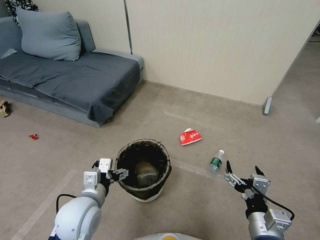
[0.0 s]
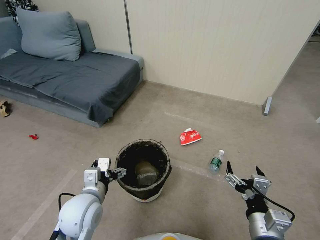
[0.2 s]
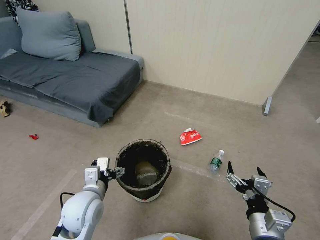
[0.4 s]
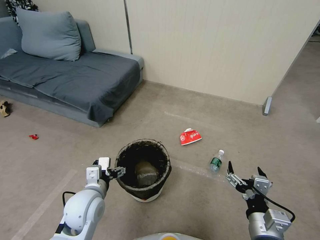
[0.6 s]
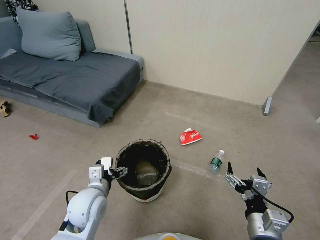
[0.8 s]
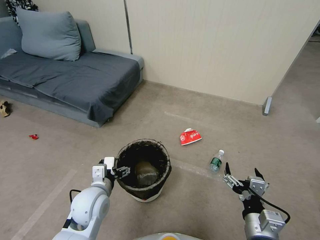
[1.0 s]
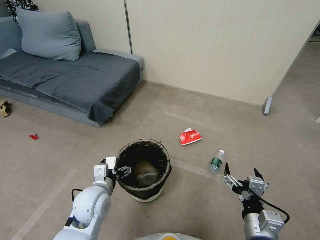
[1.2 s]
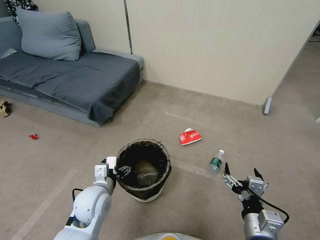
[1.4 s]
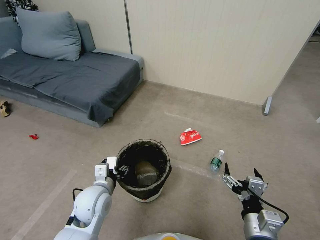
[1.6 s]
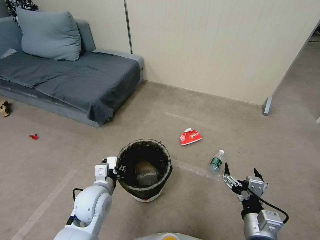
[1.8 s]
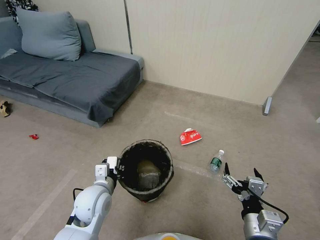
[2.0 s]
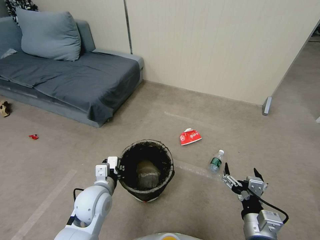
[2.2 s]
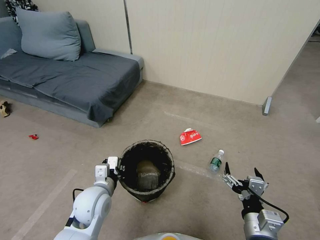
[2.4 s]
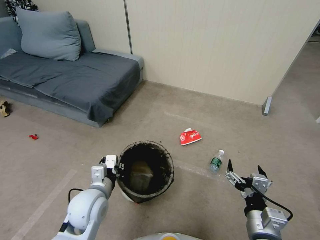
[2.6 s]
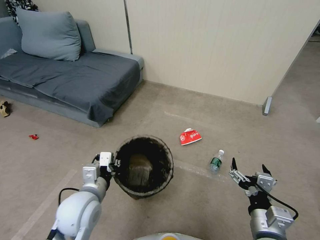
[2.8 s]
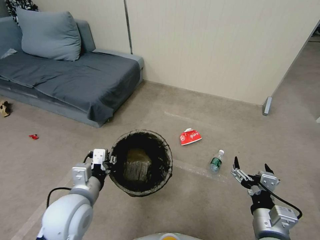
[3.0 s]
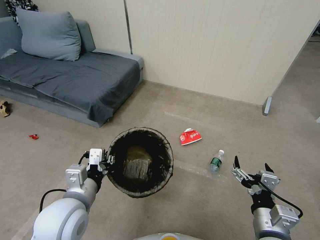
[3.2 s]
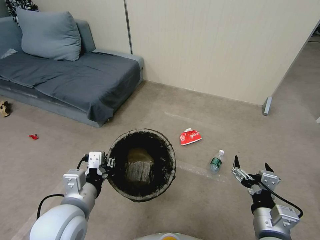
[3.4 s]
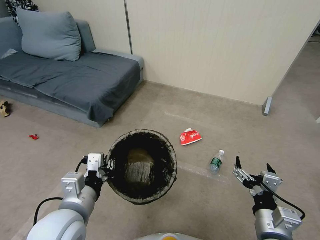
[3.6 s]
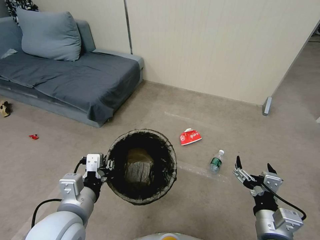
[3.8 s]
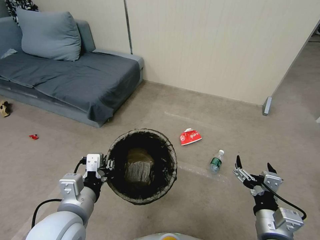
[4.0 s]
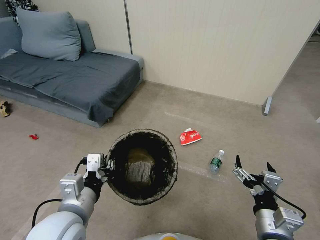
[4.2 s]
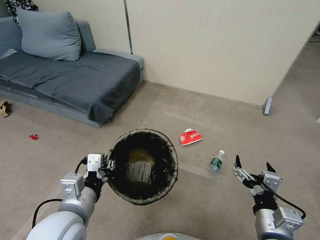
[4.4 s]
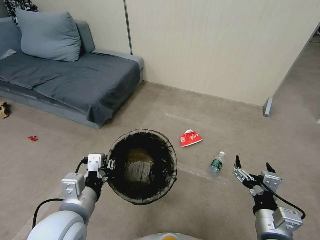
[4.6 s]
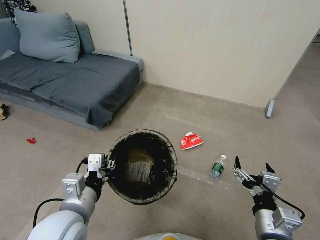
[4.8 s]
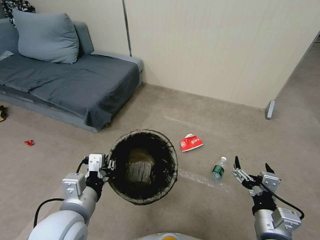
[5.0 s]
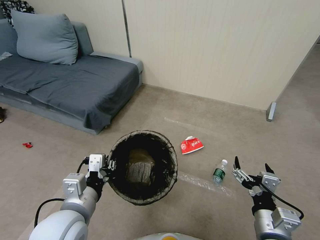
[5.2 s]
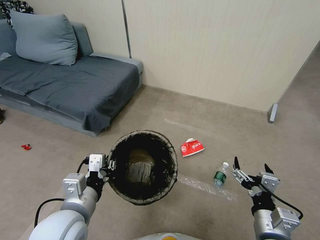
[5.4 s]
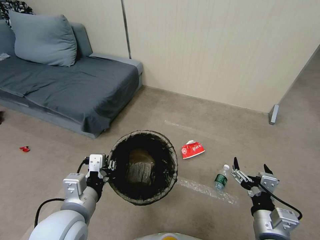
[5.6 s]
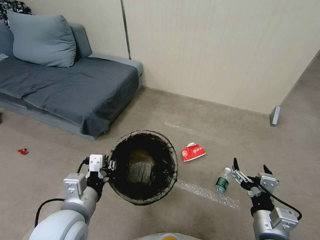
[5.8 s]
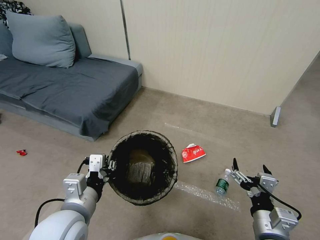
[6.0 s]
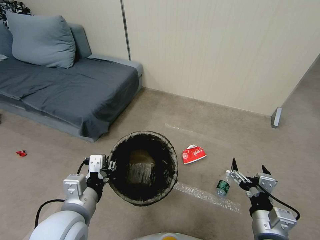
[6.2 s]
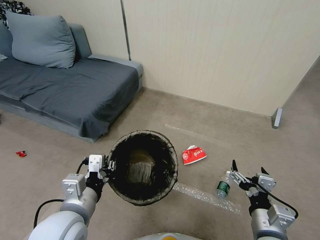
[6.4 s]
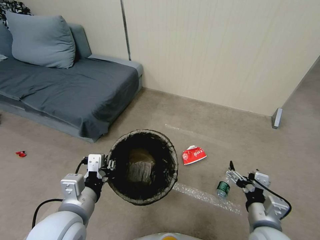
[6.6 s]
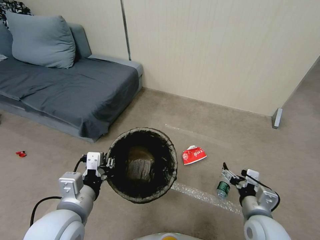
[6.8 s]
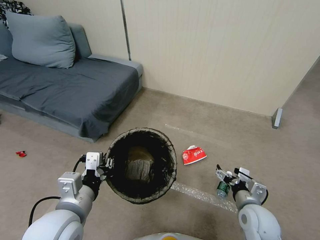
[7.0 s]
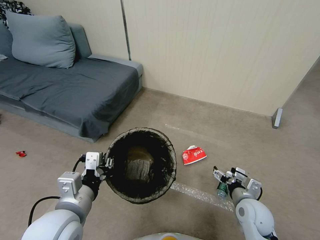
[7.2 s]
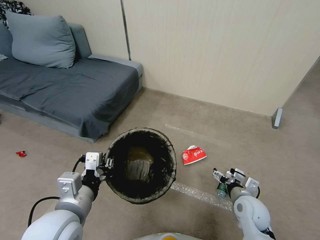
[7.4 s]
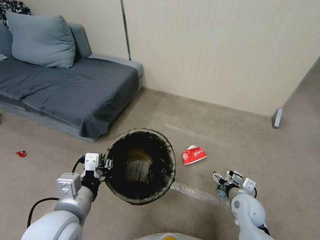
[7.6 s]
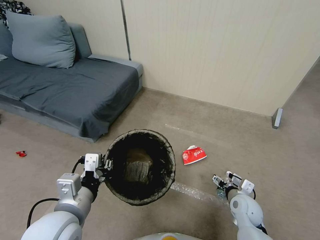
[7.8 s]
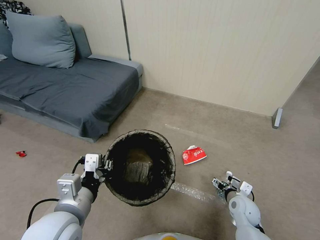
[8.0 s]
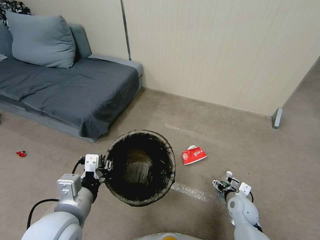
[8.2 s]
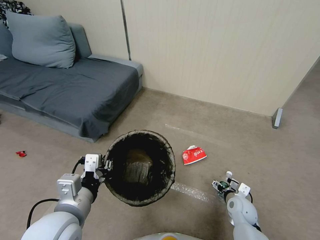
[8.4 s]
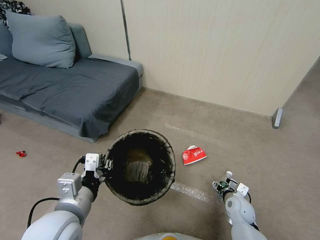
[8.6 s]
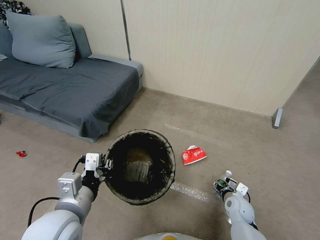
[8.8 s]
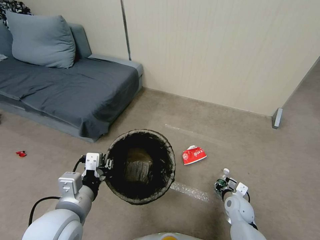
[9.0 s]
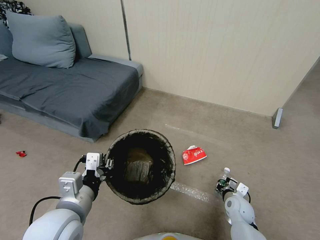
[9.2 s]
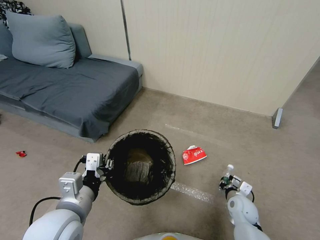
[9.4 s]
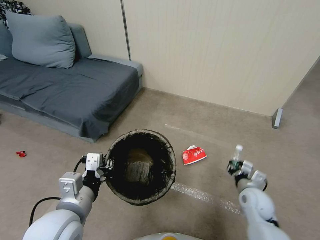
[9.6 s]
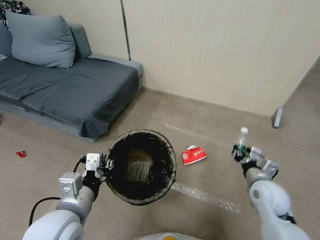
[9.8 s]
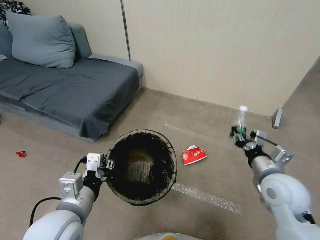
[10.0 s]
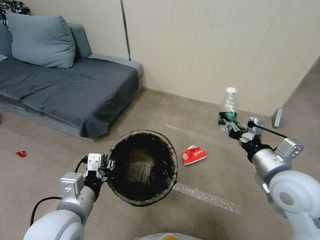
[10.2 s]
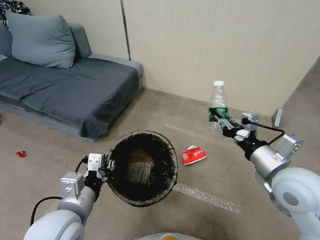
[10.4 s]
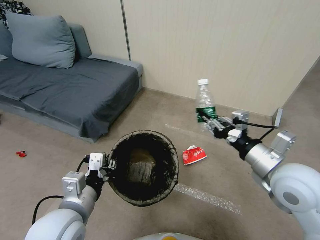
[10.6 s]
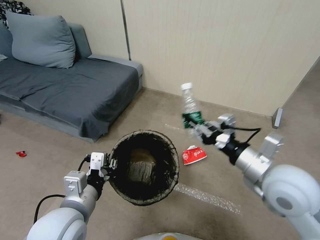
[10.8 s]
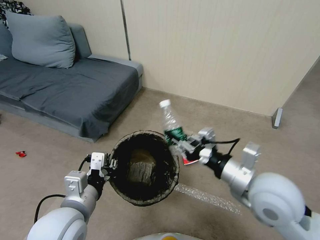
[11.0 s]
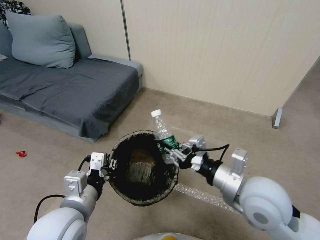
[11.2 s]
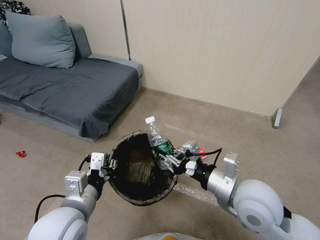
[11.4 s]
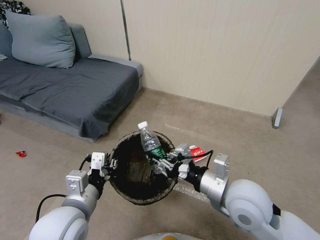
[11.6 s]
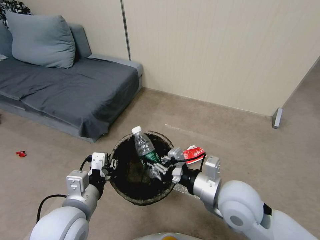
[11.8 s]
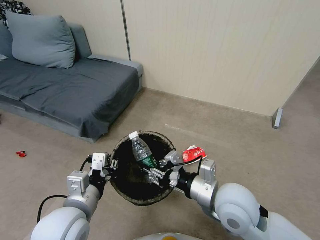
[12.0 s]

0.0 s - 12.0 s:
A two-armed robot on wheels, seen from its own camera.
Task of the whole recording: Pick up the trash bin, then pick up the garbage from the floor and place it into the trash bin.
0.0 s - 1.6 s: The left gripper shifts by approximately 5 cm, and closes its fingers.
1.6 s - 3.0 s: The left gripper heads upward, covering roughly 10 cm, and closes its fingers.
3.0 s - 4.4 s: The left gripper ends up about 5 cm from where it was.
4.4 s - 6.0 s: Both grippers stay put.
6.0 s - 7.6 s: The right gripper is displaced forward and downward by approximately 20 cm.
7.6 s - 9.0 s: The right gripper shifts roughly 10 cm downward, and closes.
9.0 s - 10.4 s: The right gripper is displaced upward by about 35 cm.
10.4 s - 12.0 s: The right gripper heads to the left and downward, covering about 15 cm.

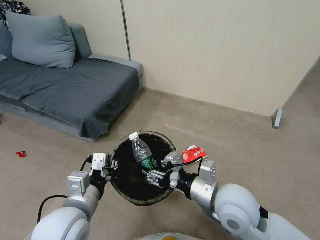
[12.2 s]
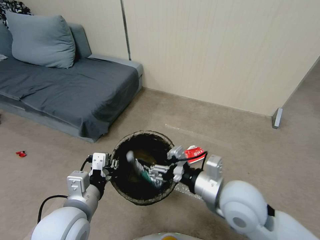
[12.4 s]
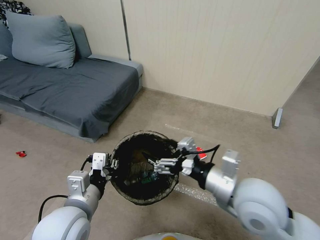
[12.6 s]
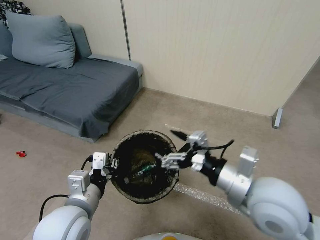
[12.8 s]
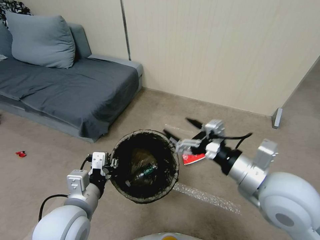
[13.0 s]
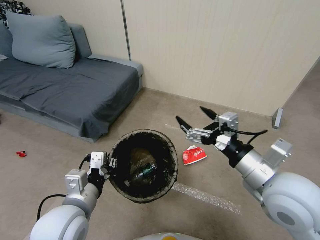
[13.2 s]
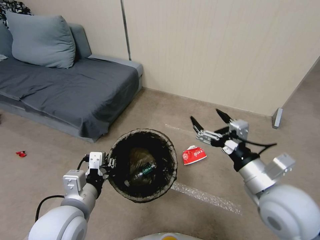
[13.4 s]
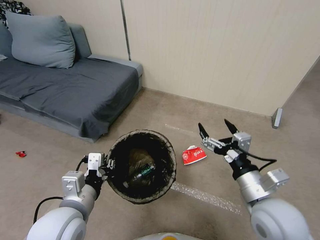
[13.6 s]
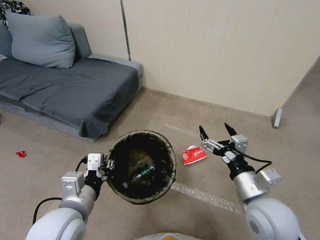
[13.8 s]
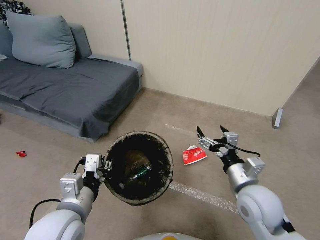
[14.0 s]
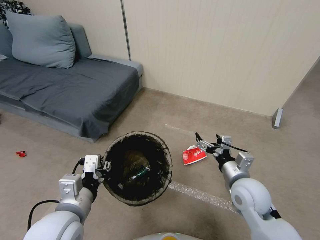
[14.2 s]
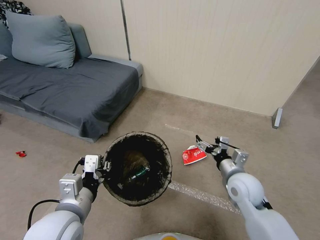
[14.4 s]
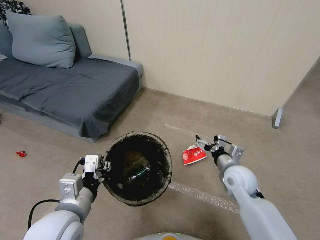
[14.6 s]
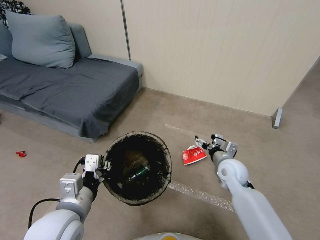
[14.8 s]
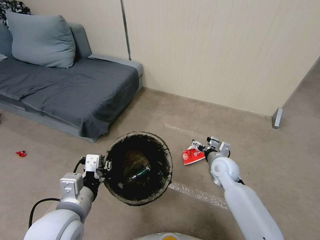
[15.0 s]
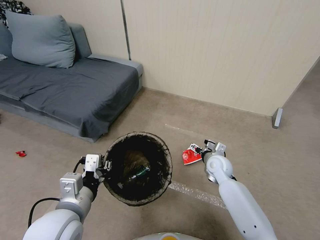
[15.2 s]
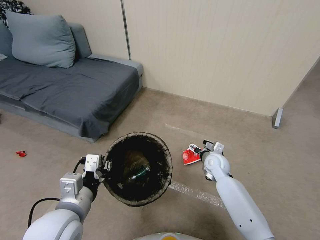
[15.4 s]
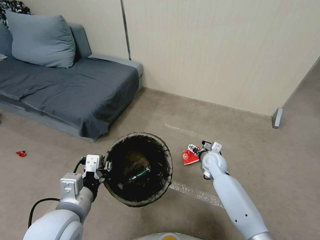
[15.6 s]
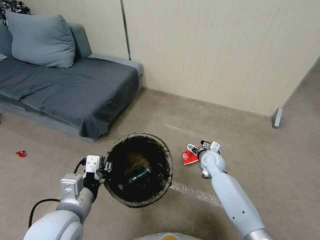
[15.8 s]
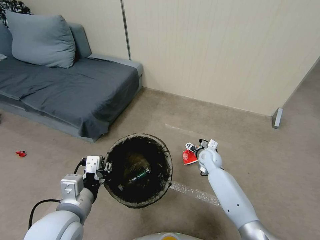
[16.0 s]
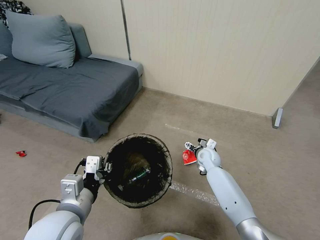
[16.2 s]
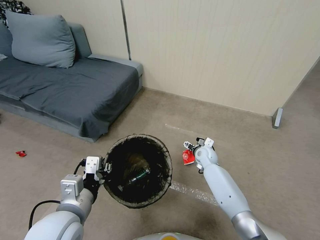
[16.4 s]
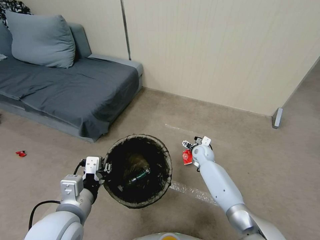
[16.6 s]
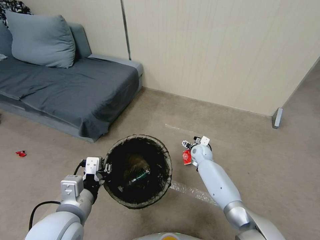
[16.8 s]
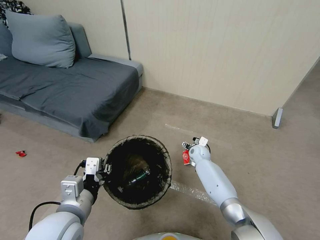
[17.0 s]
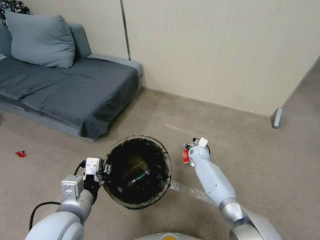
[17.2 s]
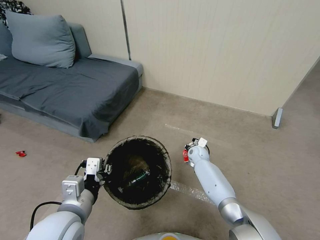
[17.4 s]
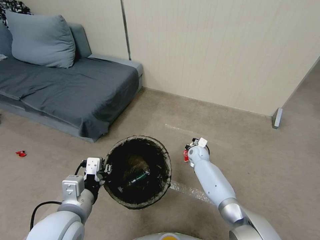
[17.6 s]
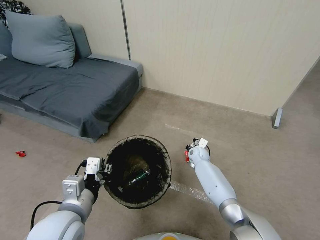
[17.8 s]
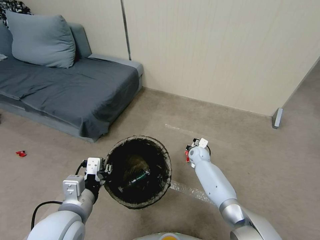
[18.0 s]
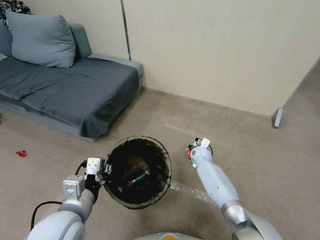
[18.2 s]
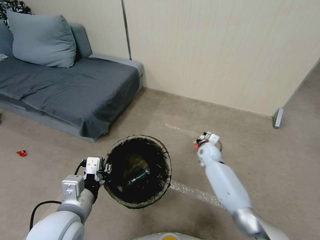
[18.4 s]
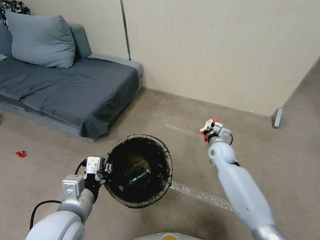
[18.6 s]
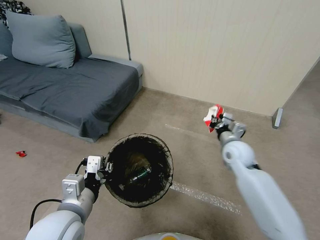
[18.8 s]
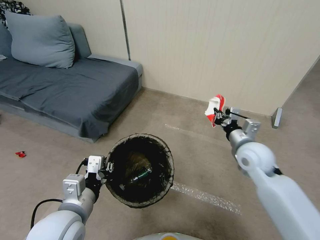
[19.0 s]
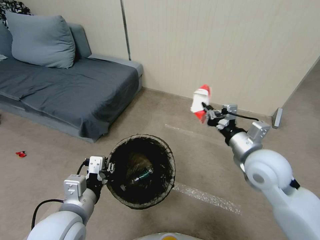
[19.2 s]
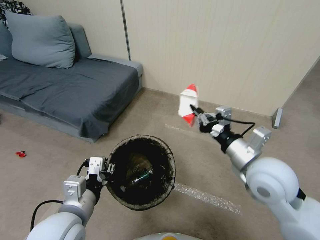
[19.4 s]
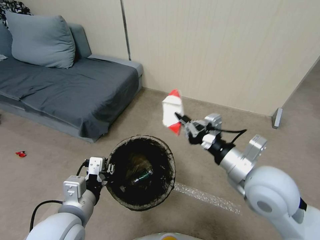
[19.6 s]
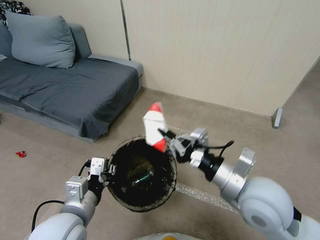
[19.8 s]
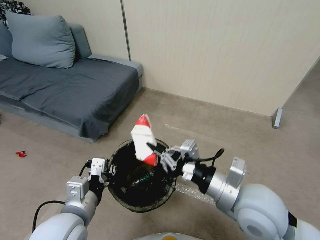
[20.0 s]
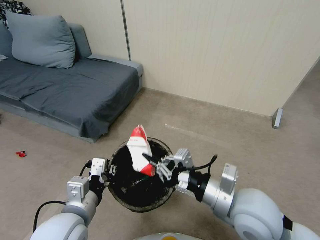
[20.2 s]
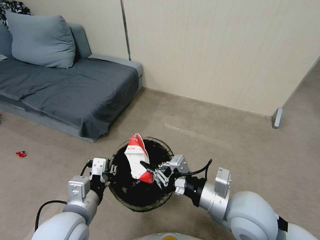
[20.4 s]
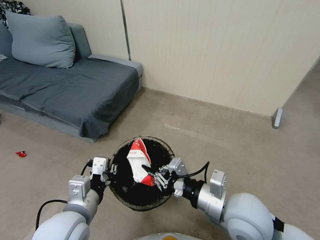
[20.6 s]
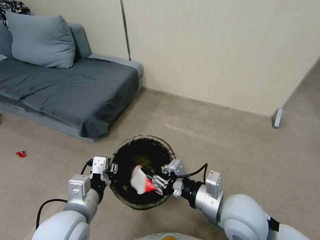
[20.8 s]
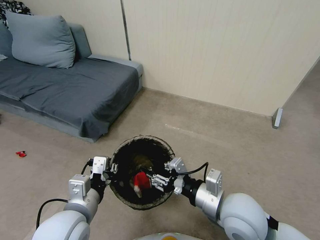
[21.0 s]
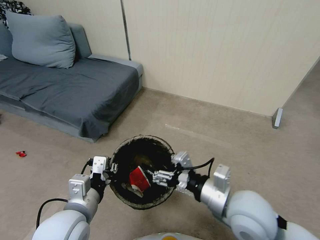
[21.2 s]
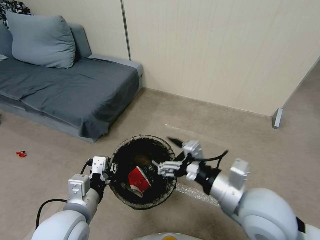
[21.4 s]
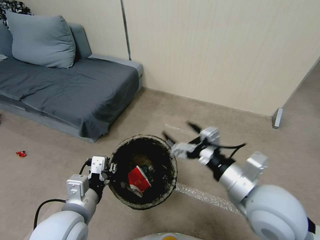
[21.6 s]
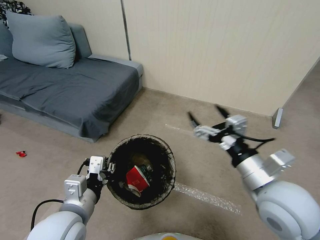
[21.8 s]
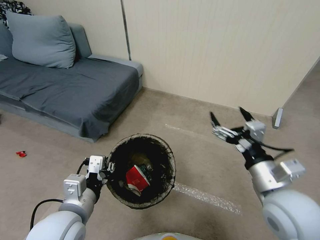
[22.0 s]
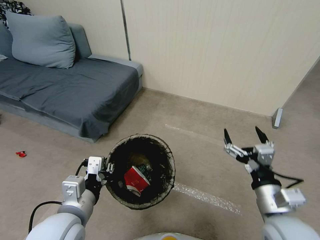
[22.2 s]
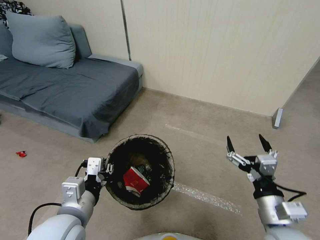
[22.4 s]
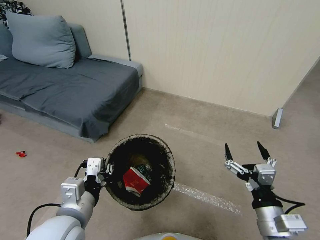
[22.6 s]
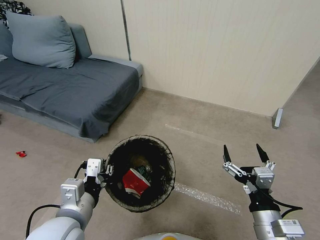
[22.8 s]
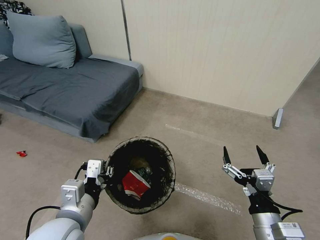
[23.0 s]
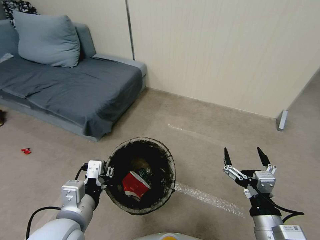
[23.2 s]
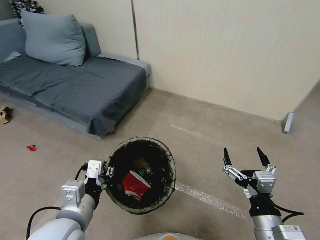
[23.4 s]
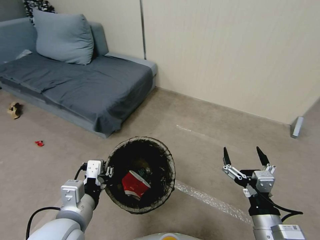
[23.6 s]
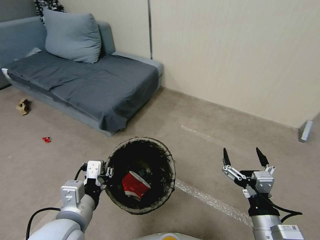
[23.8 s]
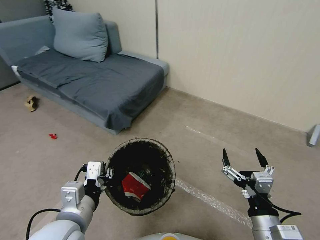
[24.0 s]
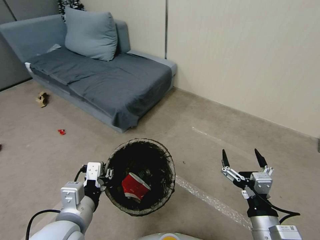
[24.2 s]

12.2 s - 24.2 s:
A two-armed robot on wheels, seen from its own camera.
Task of the whole recording: Pick up the trash bin, then pick up the garbage from the floor and place it into the trash bin.
12.2 s - 13.8 s: The right gripper is displaced to the right by roughly 10 cm, goes upward and returns, some 10 cm each way, and opens its fingers.
13.8 s - 15.2 s: The right gripper shifts roughly 25 cm forward and downward.
15.2 s - 16.6 s: The right gripper shifts roughly 10 cm forward and downward.
16.6 s - 18.2 s: The right gripper closes its fingers.
18.2 s - 19.8 s: The right gripper shifts about 40 cm upward and backward.
19.8 s - 21.2 s: The right gripper shifts by approximately 5 cm, and opens its fingers.
21.2 s - 22.6 s: The right gripper heads to the right, backward and downward, covering about 15 cm.
